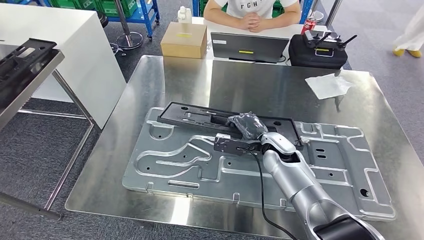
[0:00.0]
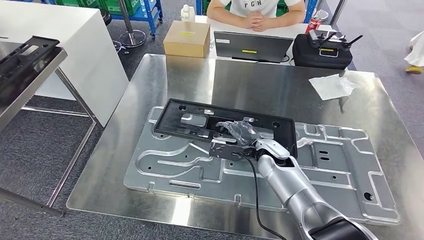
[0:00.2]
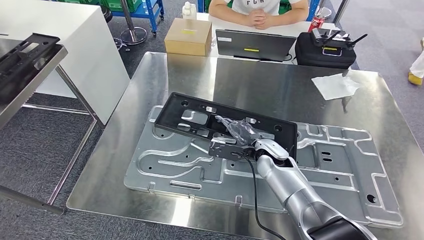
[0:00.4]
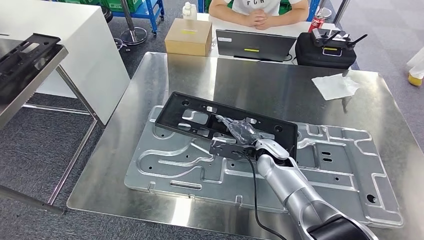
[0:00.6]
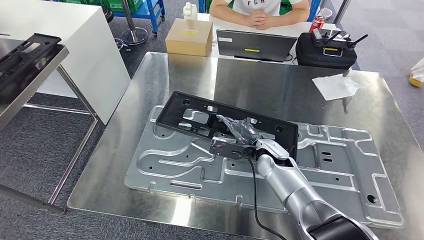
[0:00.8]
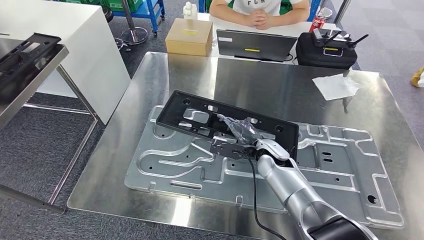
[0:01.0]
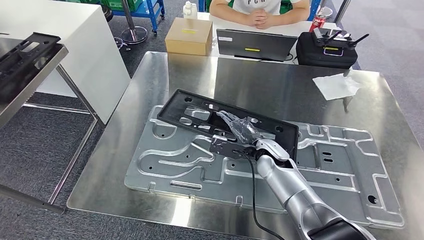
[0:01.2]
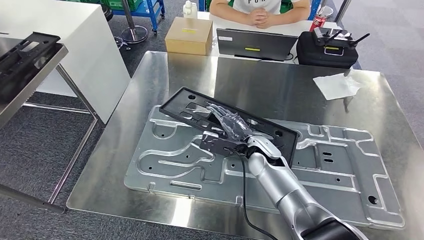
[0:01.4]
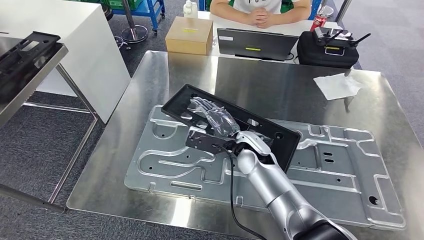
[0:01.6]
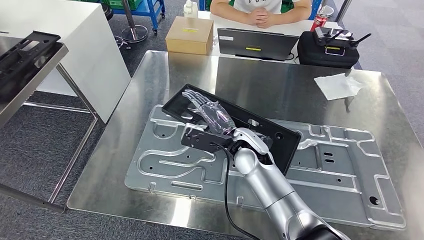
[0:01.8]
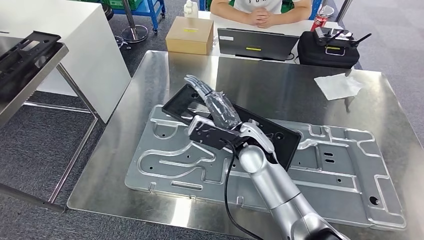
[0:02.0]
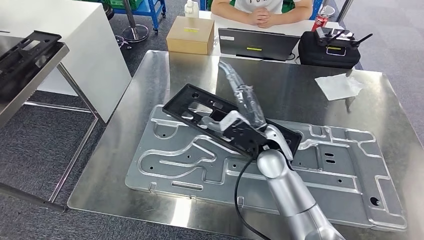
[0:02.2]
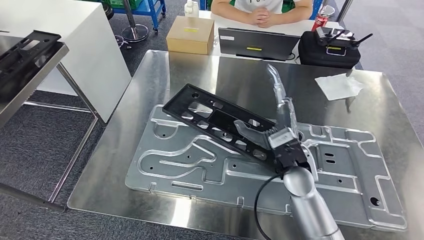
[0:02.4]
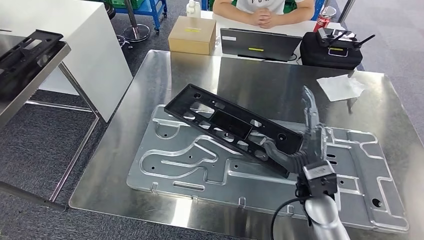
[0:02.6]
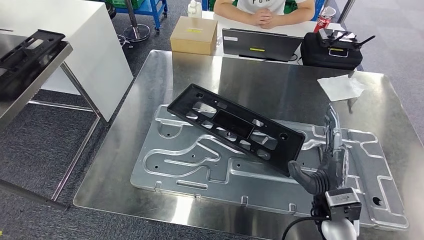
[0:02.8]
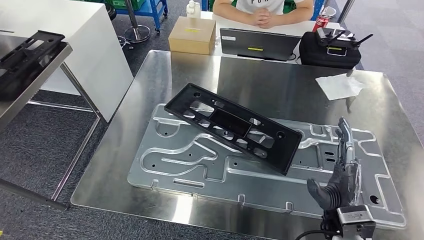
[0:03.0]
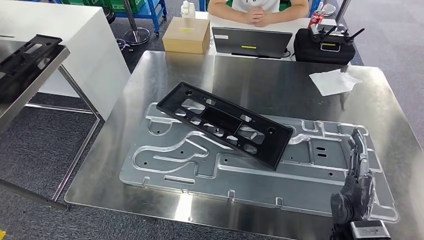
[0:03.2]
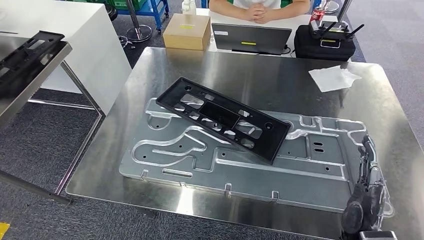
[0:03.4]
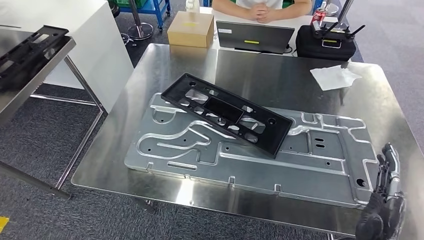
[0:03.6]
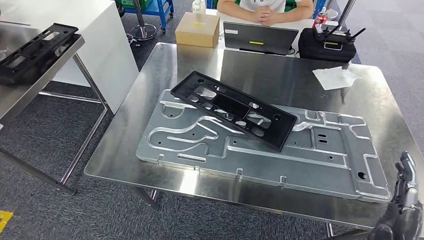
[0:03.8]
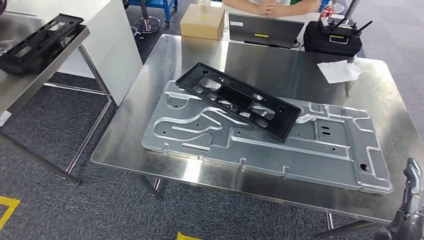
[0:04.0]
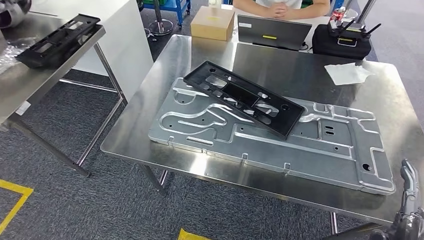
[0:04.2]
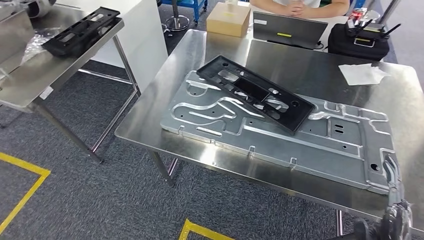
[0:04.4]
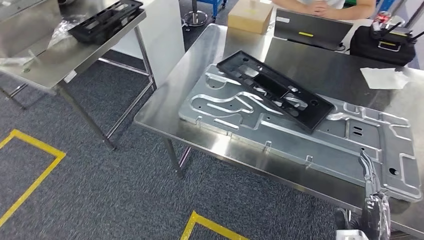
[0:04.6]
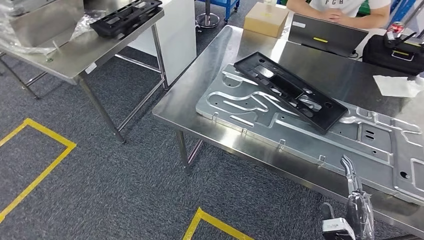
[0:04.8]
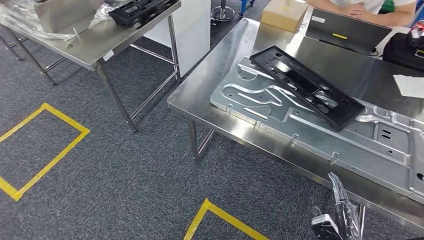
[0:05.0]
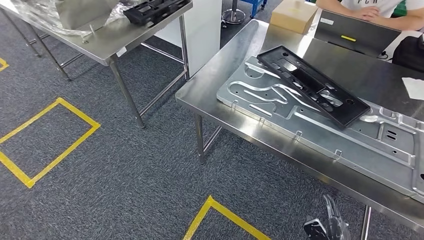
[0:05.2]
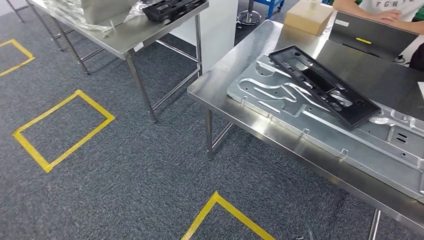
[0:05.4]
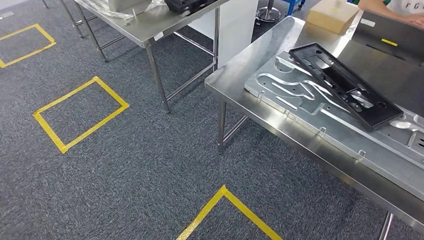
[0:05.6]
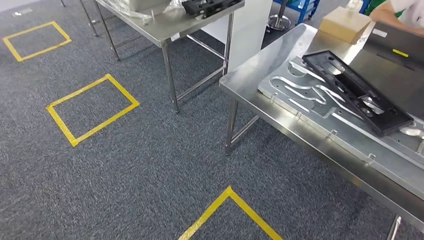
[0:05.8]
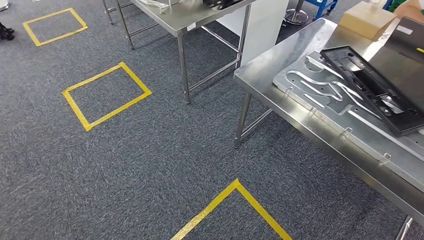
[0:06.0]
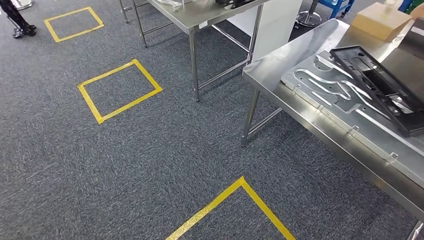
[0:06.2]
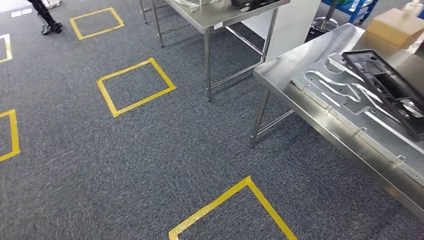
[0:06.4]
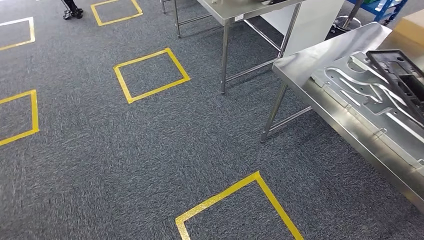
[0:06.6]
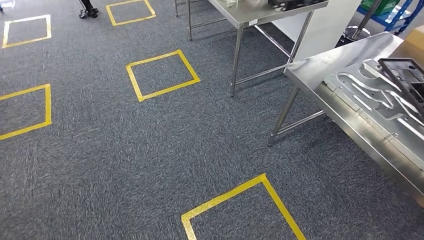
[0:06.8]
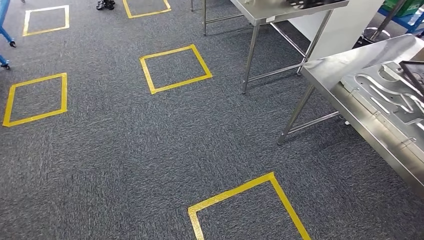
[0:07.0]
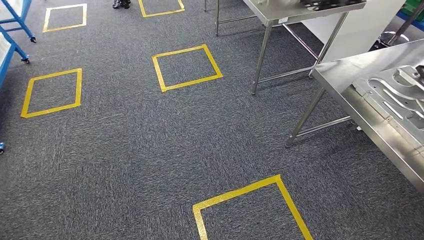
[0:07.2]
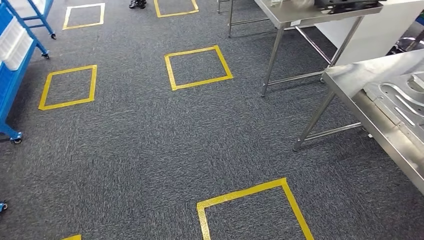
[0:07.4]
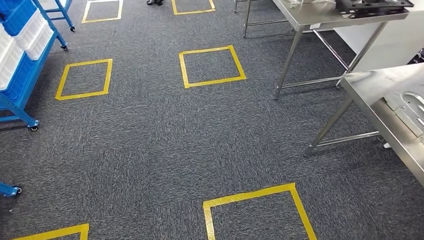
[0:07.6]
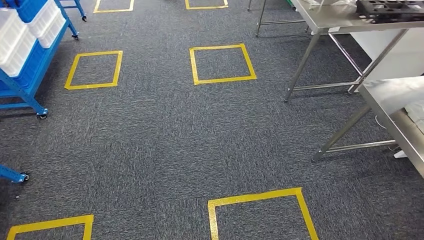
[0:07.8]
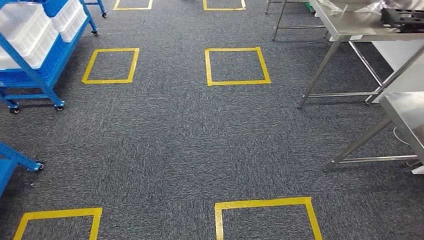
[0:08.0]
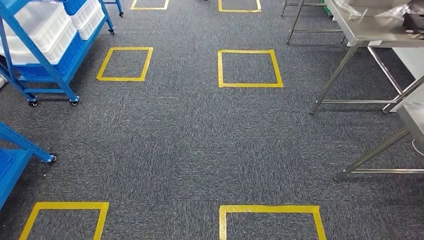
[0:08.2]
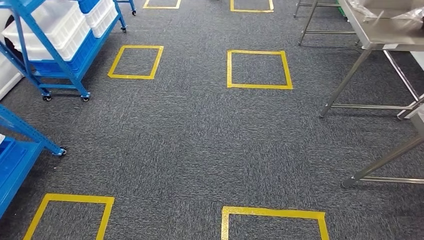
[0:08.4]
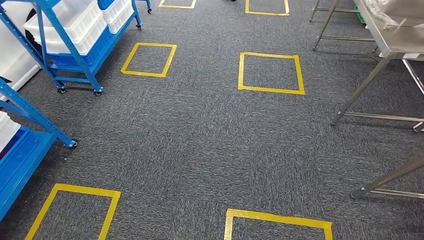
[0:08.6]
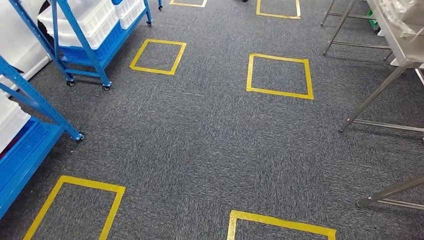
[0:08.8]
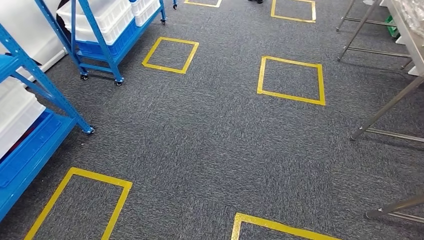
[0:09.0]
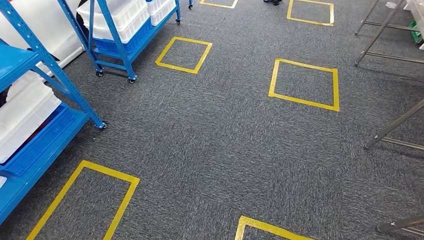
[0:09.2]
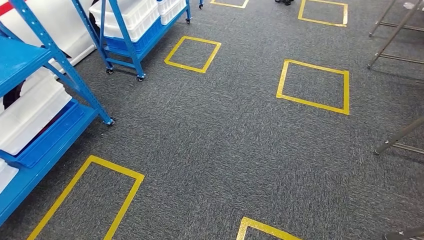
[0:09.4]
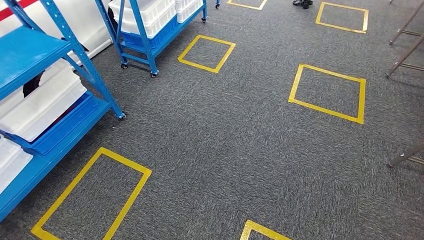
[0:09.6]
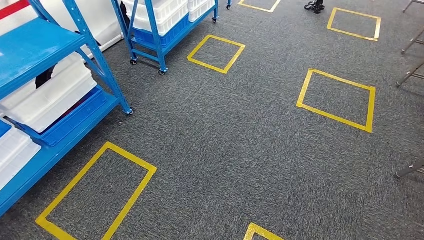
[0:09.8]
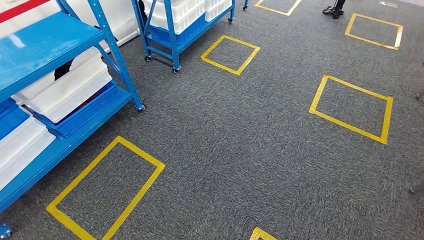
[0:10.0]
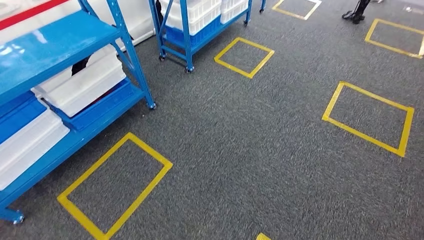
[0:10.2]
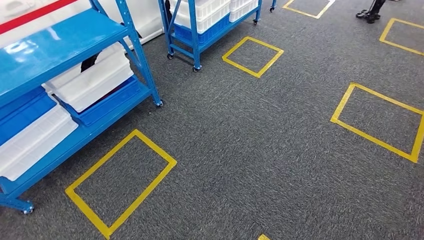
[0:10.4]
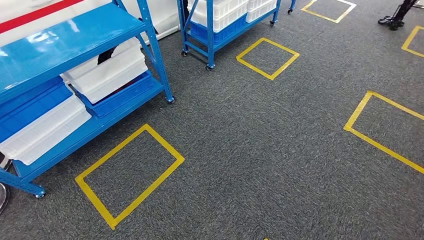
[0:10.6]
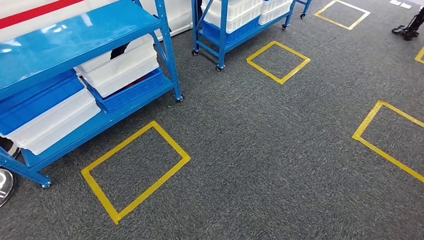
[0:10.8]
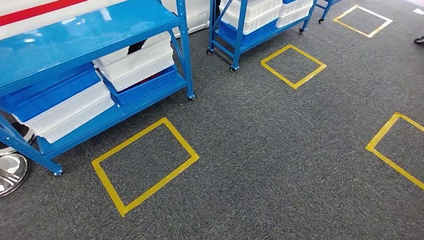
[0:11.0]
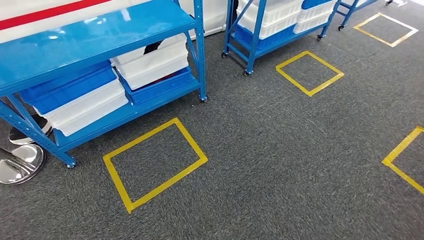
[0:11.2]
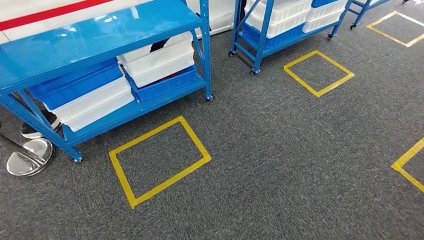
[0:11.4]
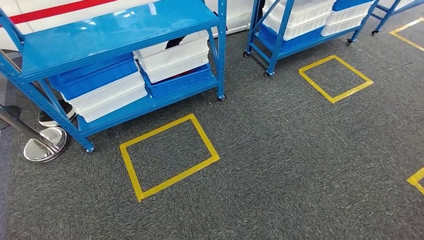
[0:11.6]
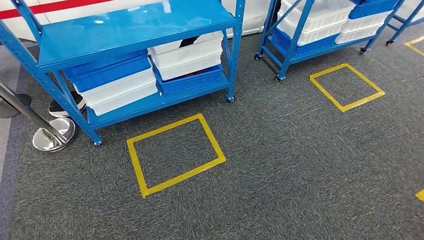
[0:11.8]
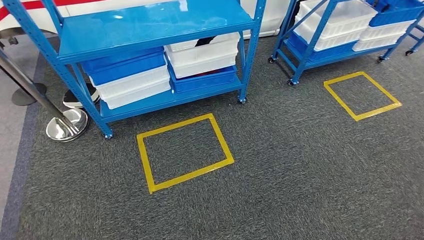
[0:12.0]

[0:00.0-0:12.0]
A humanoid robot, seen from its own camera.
Step, 0:00.0 to 0:04.0: Insert the large material into the corresponding slot on the workbench.

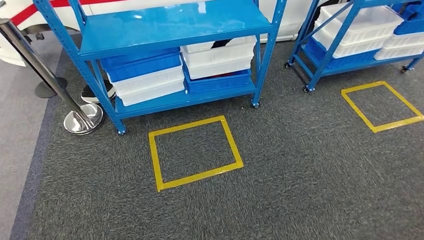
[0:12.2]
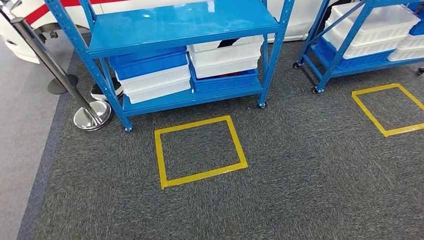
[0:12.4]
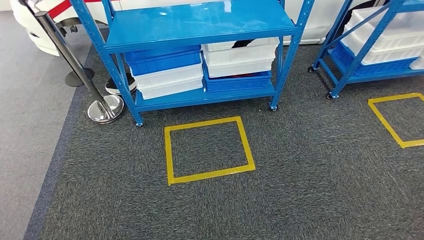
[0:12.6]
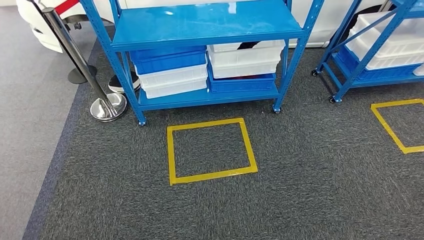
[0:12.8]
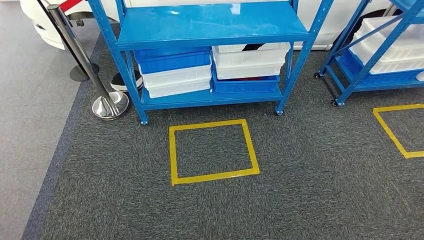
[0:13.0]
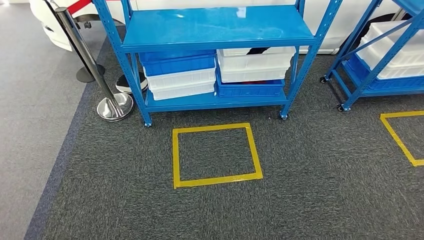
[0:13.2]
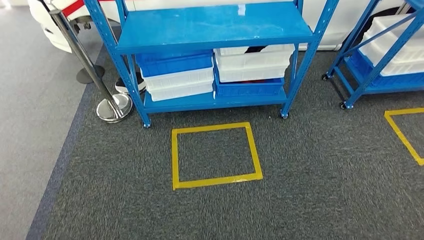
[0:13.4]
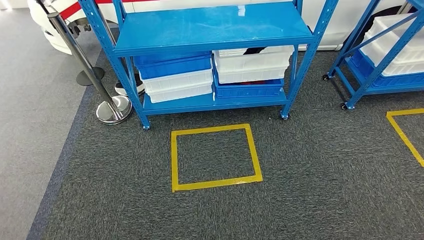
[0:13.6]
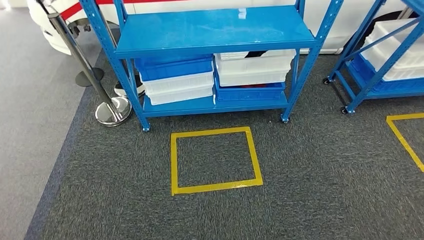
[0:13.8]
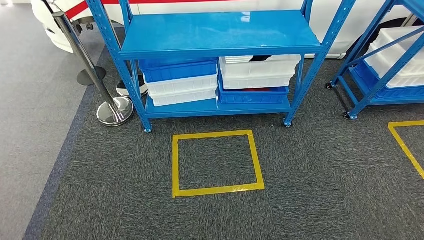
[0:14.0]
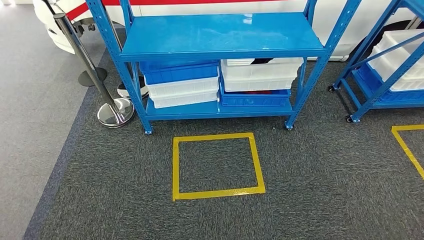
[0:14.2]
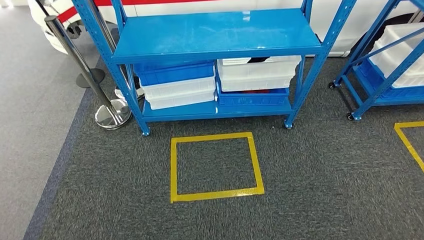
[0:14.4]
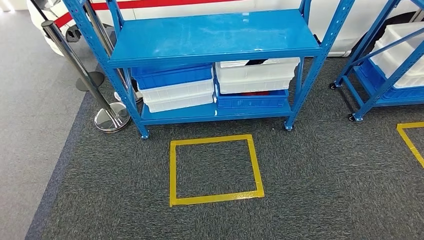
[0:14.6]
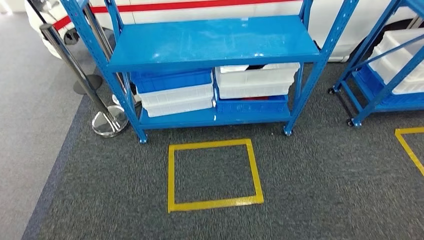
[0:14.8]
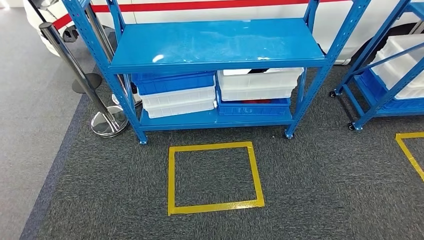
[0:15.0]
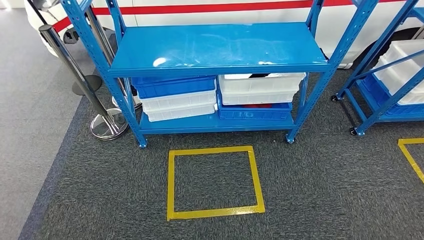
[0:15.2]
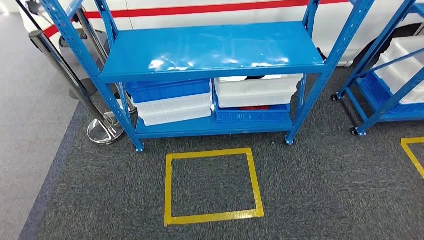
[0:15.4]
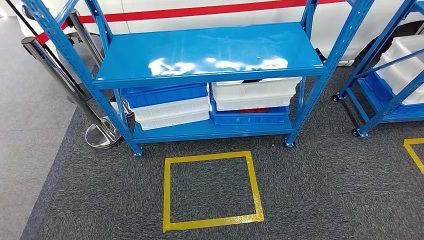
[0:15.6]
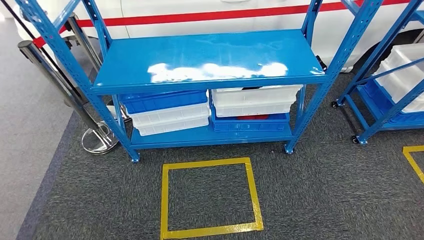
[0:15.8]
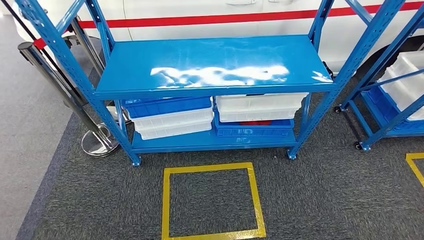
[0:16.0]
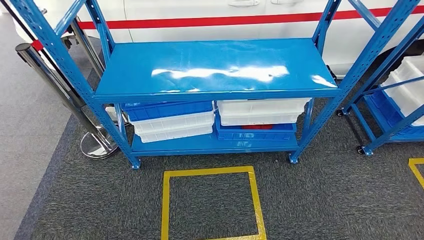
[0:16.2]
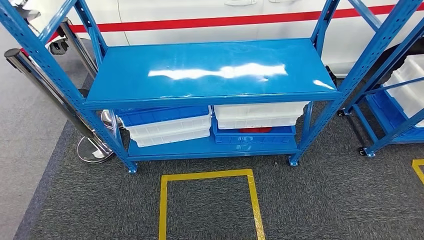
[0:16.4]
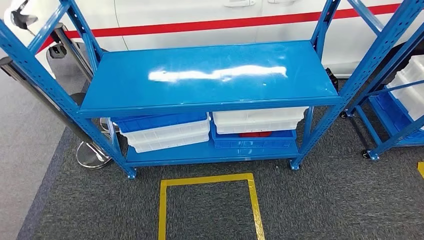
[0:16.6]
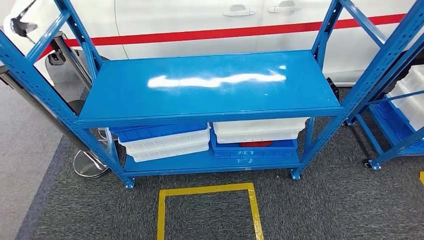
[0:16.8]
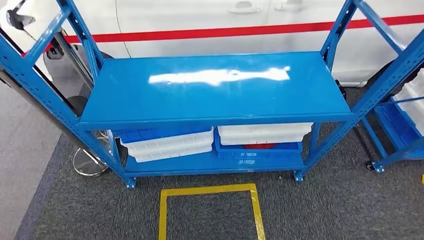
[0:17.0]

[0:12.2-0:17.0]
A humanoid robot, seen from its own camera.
Step, 0:12.2 to 0:16.8: Move to the initial position of the shelf.
